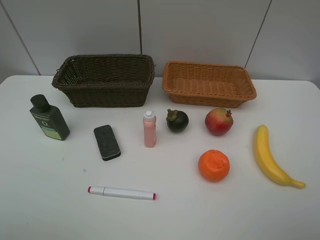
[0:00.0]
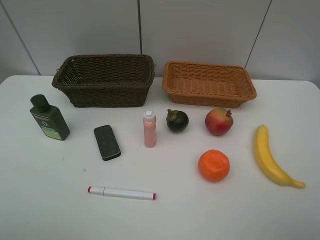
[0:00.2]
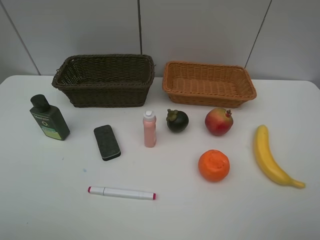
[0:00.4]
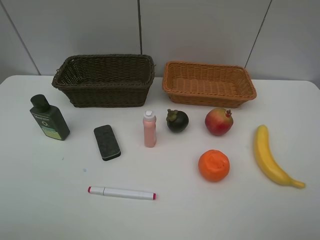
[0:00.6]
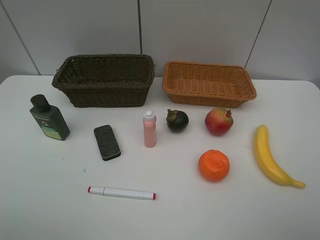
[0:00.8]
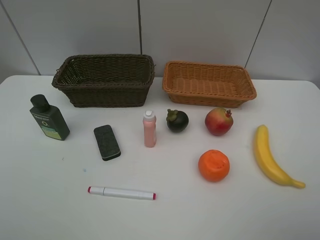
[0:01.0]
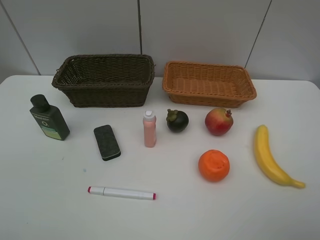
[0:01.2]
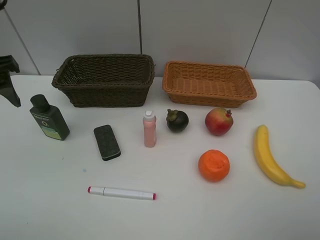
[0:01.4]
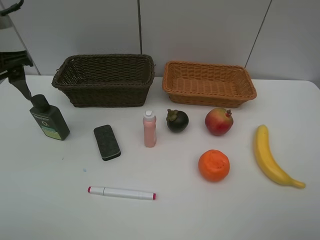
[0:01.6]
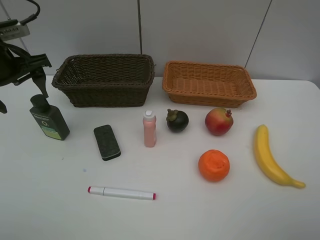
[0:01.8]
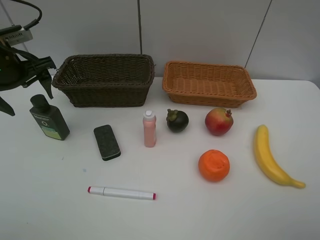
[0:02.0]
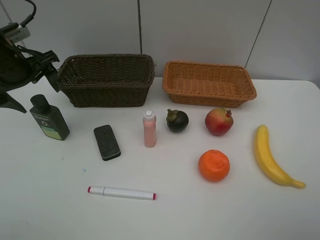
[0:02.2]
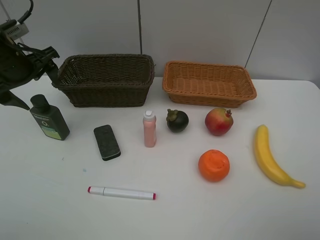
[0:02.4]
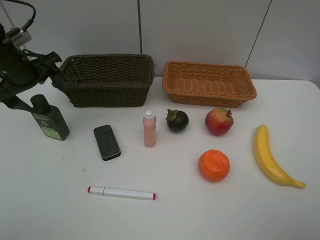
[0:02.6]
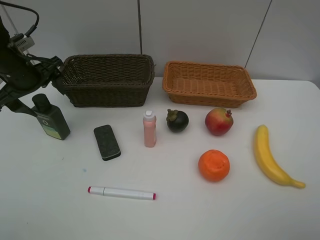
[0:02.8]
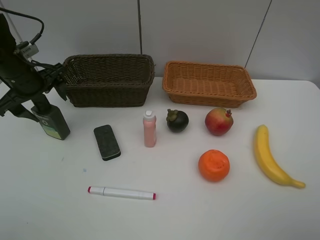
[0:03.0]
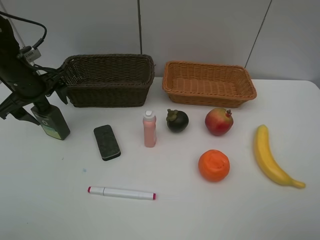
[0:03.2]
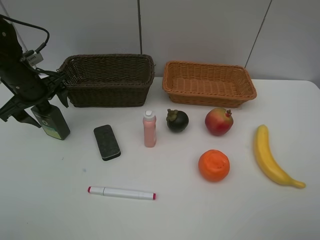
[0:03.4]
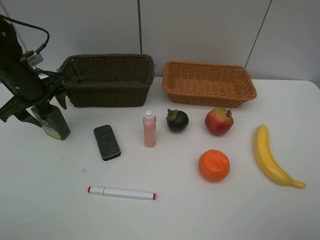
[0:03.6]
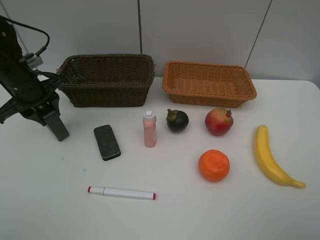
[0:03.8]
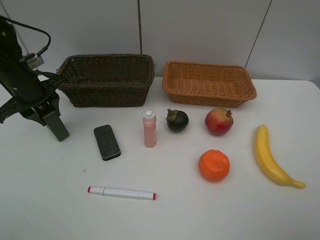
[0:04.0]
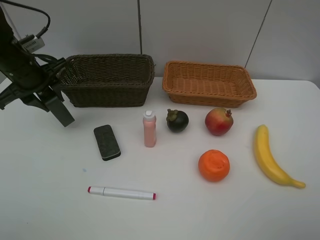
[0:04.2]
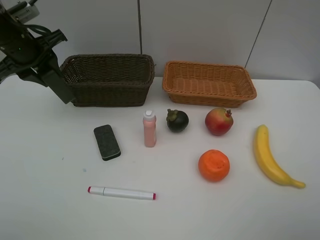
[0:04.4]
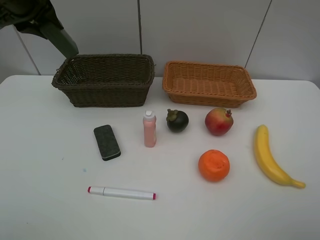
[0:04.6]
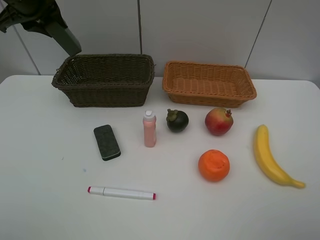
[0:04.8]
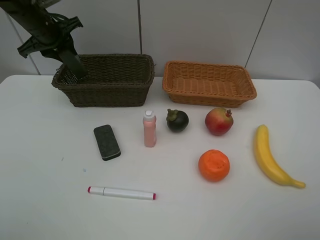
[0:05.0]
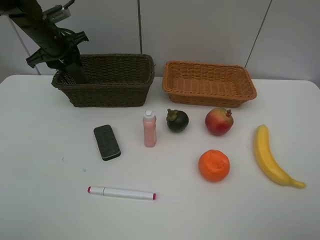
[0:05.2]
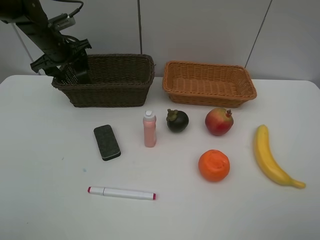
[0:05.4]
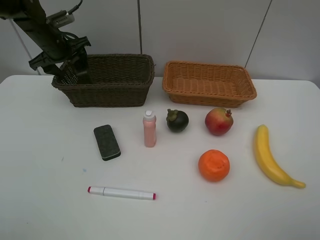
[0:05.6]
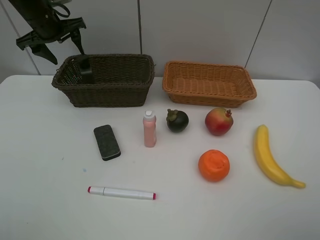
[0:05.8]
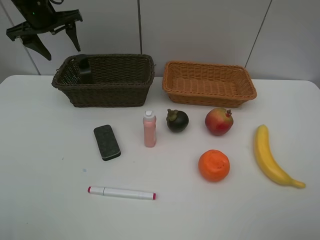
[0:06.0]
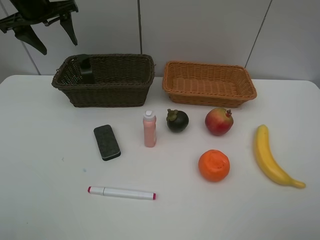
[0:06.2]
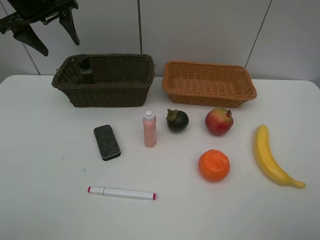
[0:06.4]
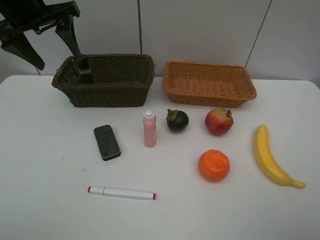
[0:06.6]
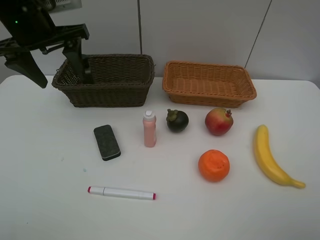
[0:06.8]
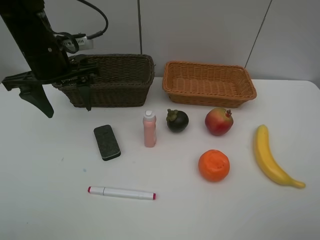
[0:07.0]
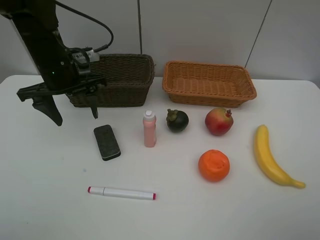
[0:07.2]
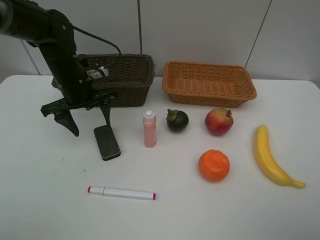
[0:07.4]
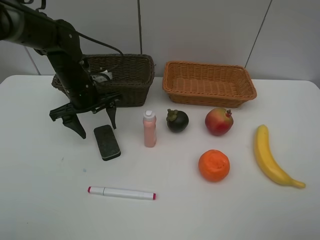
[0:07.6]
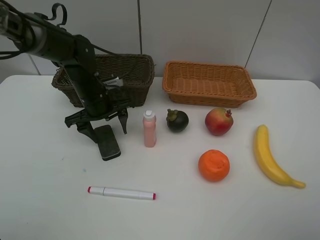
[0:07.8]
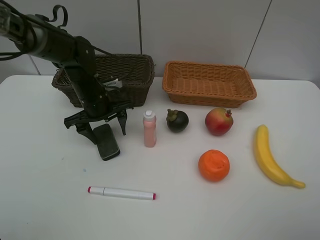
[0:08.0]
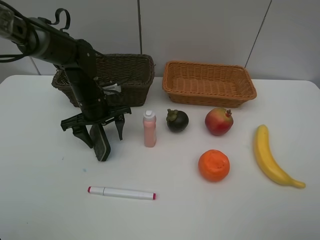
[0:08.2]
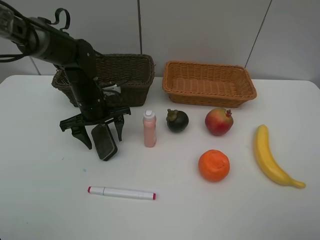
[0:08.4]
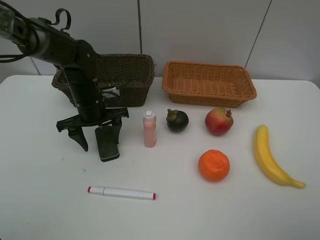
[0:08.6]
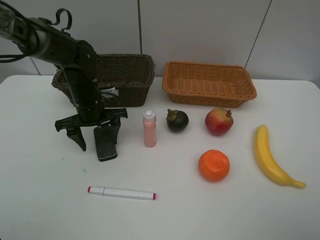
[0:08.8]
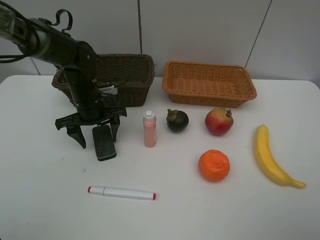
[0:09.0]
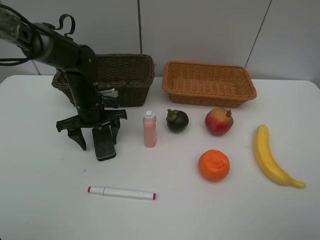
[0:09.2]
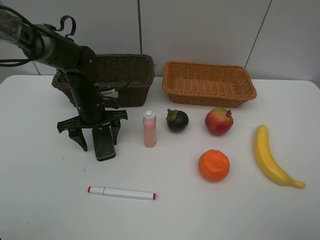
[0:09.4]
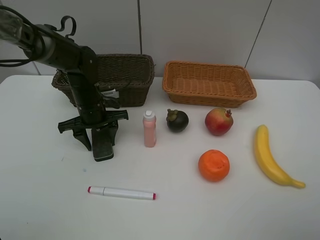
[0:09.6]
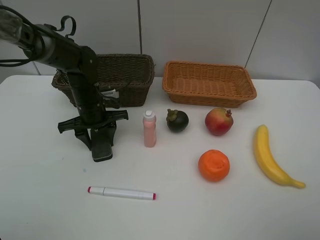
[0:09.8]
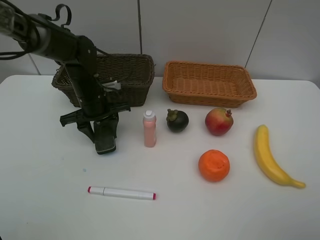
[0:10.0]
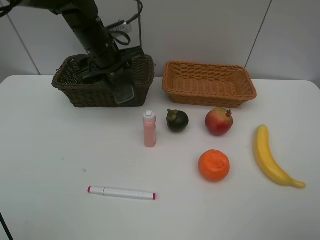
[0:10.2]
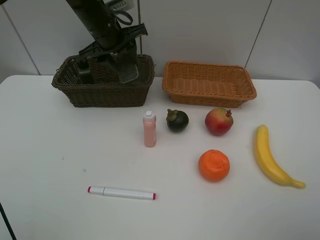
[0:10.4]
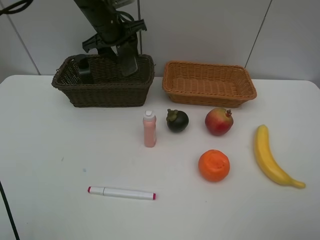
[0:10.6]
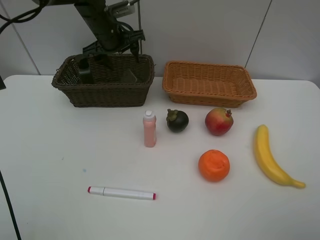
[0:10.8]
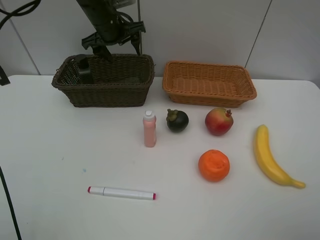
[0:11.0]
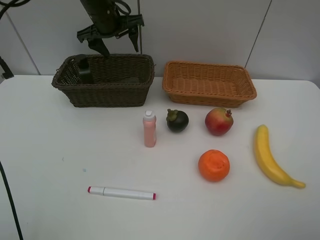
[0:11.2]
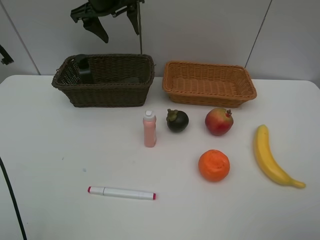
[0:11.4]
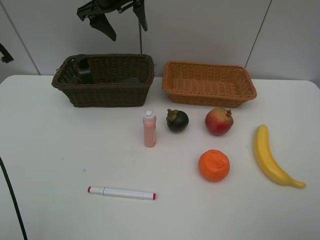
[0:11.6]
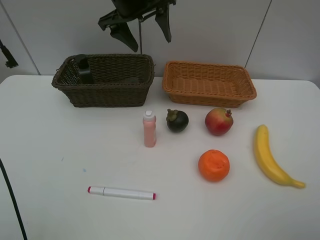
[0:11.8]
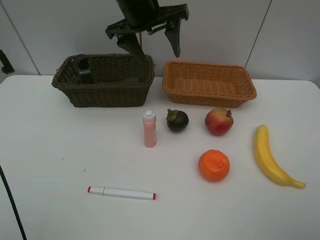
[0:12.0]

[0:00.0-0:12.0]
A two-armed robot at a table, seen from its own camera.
Task of the whole recording: Place multiple objects separately in different baskets.
Step, 0.0 to 4.2 s: Pick up the hard facial cleanser with left gripper.
Step, 4.4 to 5.6 s: Place the hard facial cleanser in the dark basket with left gripper.
Step, 5.8 to 10.0 s: Pick up blackboard eraser with left gripper.
Step, 10.2 to 11.0 s: Place the blackboard eraser in the dark basket with left gripper.
0.0 to 1.6 s: The left gripper shifts about 30 cm forward.
1.6 to 3.0 s: The left gripper travels downward and forward by some 10 cm.
3.0 to 4.4 s: The left gripper is displaced upward by about 10 cm, and closes.
4.4 to 6.0 s: The left gripper goes up and down, about 15 cm each way, reversing 2 times, and opens up.
6.0 to 7.6 s: The left gripper goes approximately 20 cm downward, backward and to the right.
7.6 to 9.0 s: The grippers make only small movements.
9.0 to 10.4 s: The left gripper moves upward and forward, some 15 cm, and closes.
10.4 to 12.0 s: The left gripper heads to the right and backward, covering about 10 cm, and opens up.

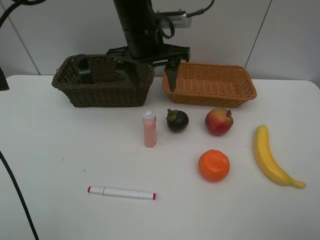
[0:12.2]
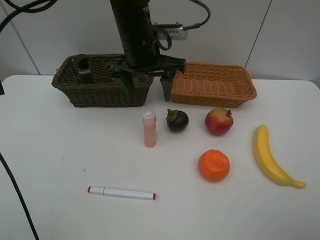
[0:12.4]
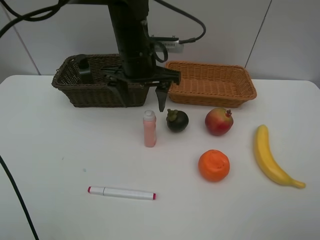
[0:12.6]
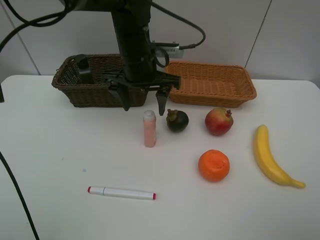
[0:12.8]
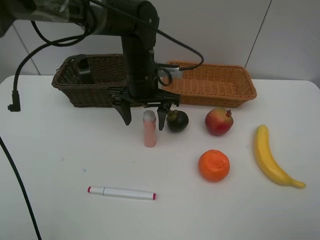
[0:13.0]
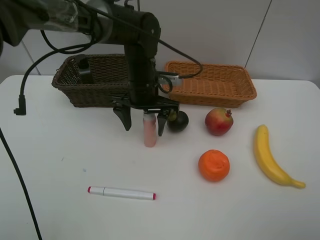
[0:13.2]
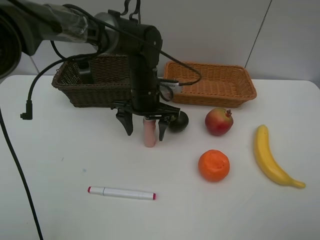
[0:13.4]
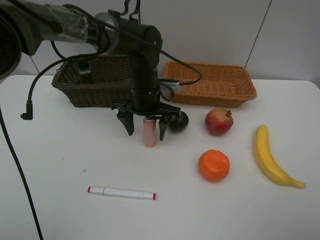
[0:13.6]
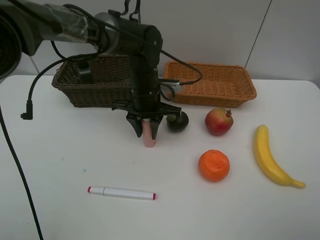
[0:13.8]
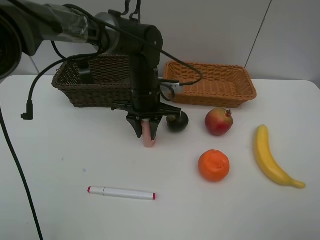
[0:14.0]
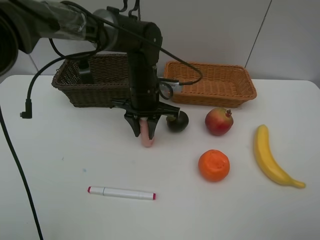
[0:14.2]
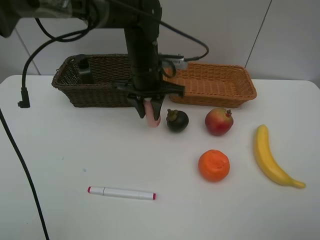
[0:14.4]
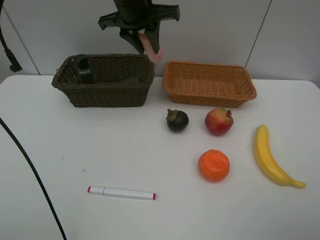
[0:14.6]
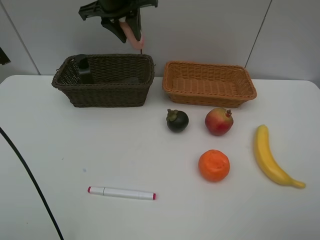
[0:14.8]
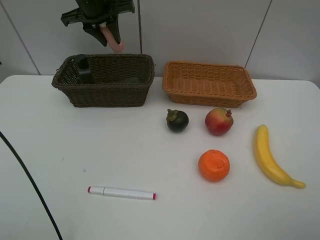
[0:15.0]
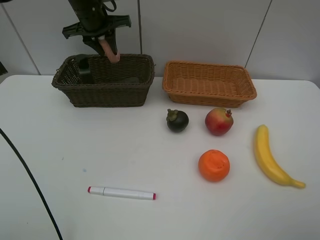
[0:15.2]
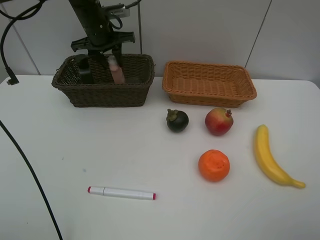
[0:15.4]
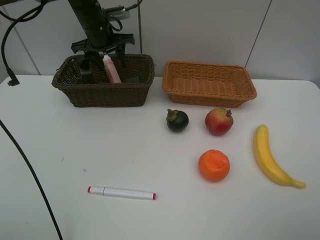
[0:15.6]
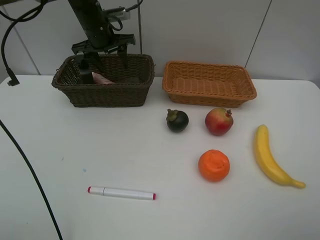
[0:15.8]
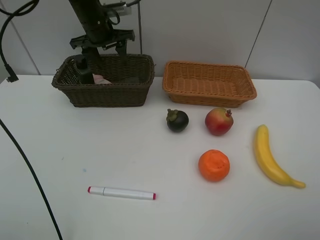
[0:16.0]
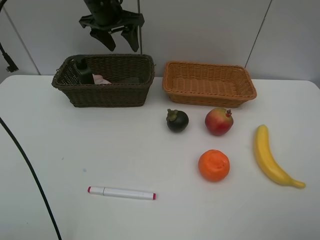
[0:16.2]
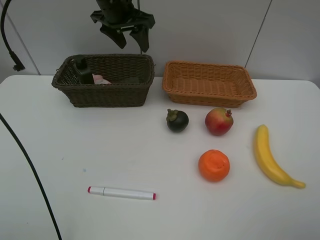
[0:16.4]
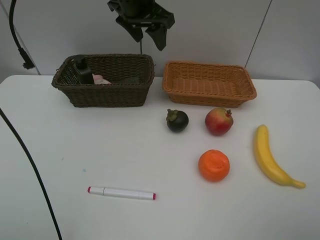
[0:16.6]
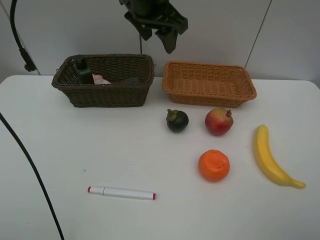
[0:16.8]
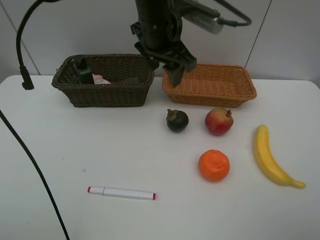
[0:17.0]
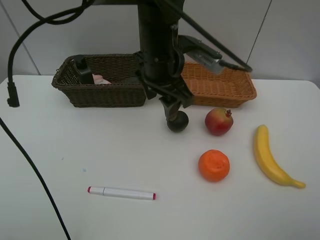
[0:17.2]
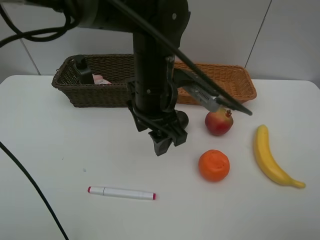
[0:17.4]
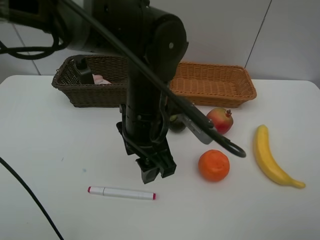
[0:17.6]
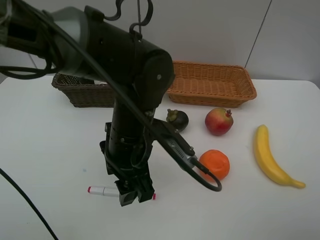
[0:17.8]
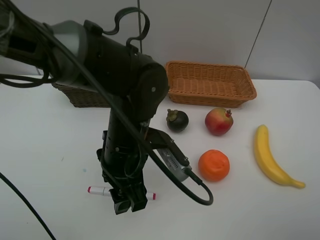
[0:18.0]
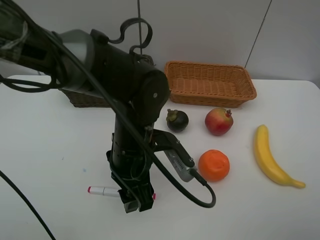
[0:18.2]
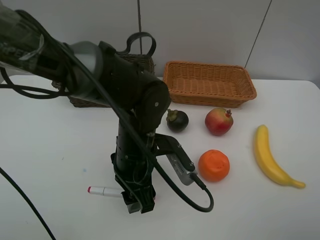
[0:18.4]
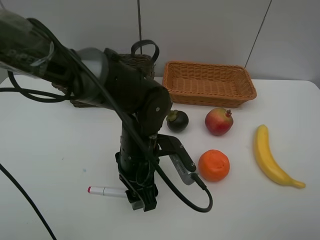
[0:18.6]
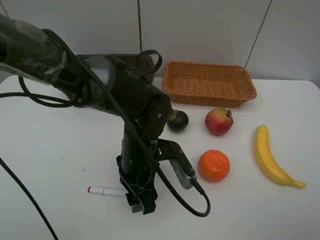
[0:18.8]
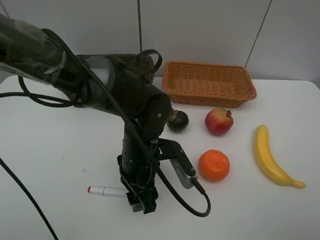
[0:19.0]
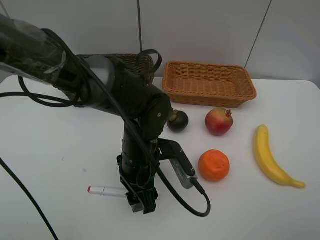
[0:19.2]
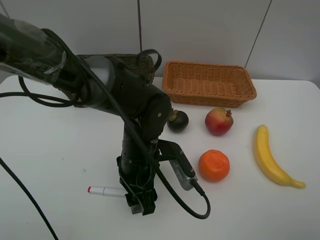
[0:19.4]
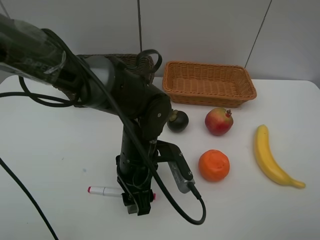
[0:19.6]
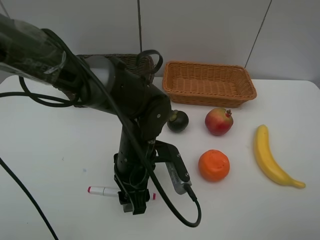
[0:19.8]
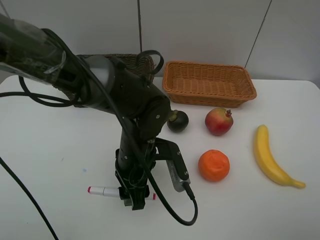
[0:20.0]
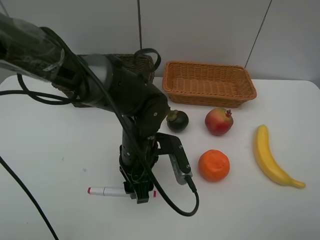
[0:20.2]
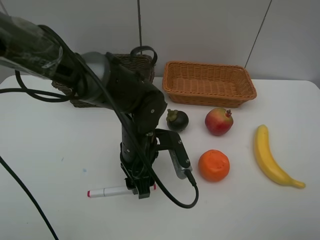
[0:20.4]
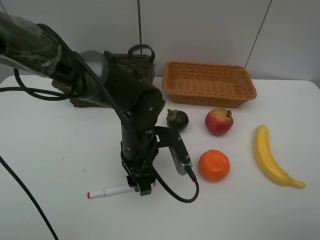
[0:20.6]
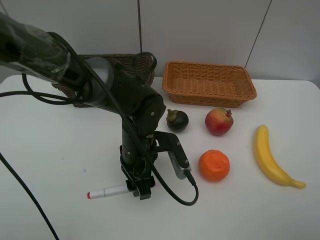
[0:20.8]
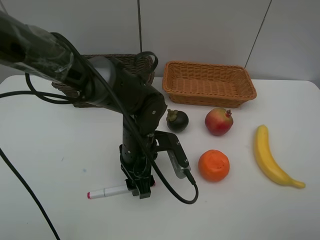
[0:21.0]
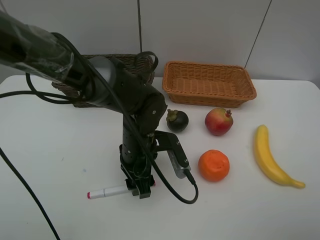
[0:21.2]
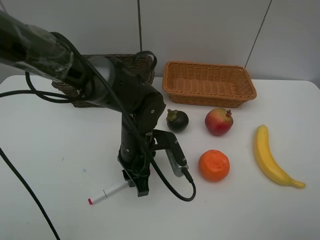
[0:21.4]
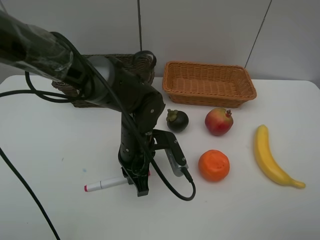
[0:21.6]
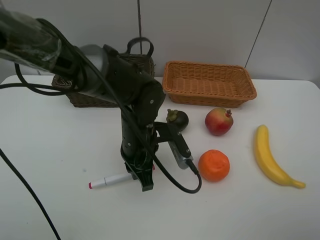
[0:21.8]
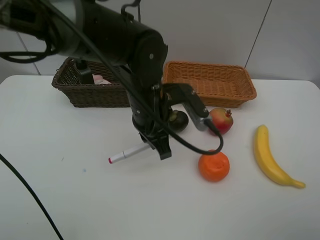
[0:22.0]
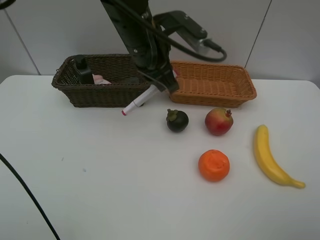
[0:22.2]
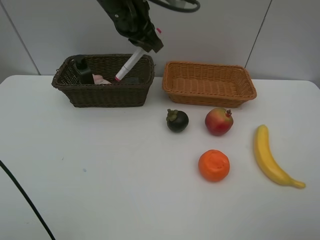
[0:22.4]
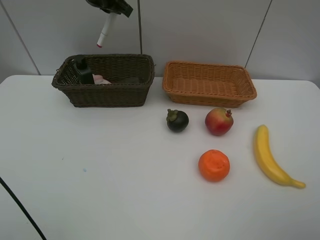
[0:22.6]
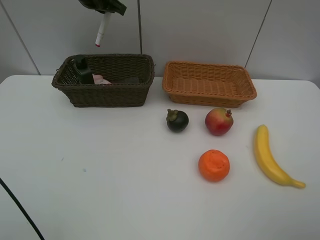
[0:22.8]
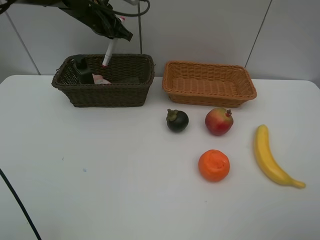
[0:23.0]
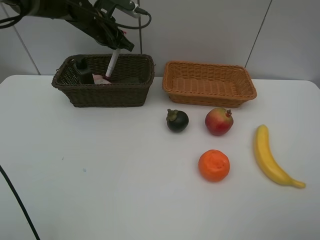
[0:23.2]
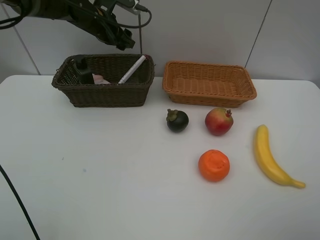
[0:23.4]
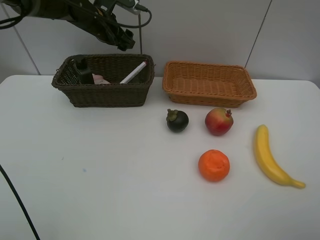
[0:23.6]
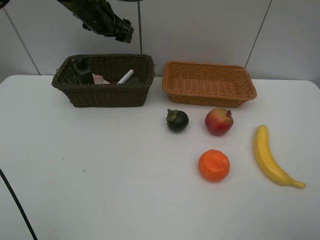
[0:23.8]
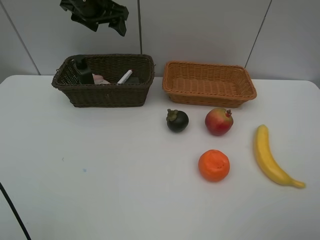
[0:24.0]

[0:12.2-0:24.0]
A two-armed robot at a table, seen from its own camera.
Task of the whole recording: Place multiple objects separately in different baskets.
Step, 12.2 to 14.2 s: Pick up the laundry detergent with left gripper.
Step, 14.4 to 15.6 s: Place the laundry detergent in the dark basket with left gripper.
Step, 15.8 to 21.8 s: Pick up the red marker with left gripper.
Step, 22.0 to 23.4 s: Place the red marker in the dark basket with left gripper.
12.2 to 13.6 s: The left gripper moves downward, roughly 15 cm.
13.6 to 15.2 s: The left gripper is displaced to the left, forward and upward by approximately 20 cm, and closes.
15.2 to 16.6 s: The left gripper heads to the right, backward and upward, covering roughly 15 cm, and opens.
16.6 to 18.2 s: The left gripper travels backward and downward by approximately 30 cm.
18.2 to 21.0 s: There are only small adjustments of the grippers.
21.0 to 22.6 s: The left gripper goes approximately 35 cm upward, forward and to the left, and closes.
22.6 to 24.0 s: The left gripper moves approximately 10 cm downward and comes back, and opens up.
